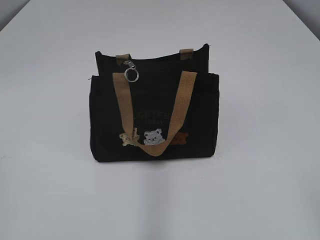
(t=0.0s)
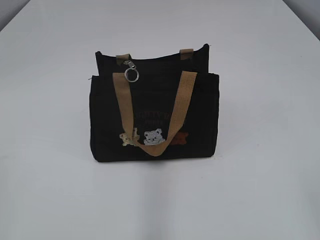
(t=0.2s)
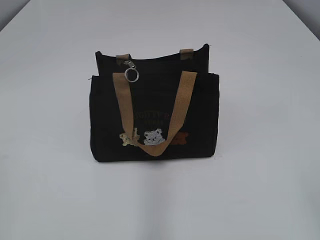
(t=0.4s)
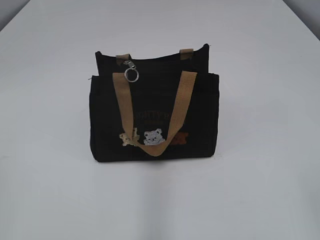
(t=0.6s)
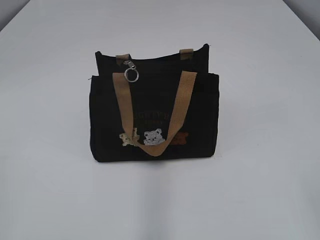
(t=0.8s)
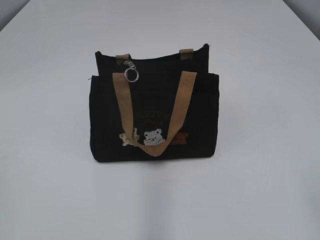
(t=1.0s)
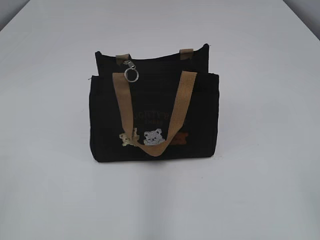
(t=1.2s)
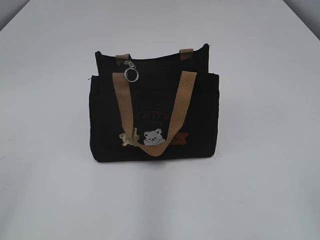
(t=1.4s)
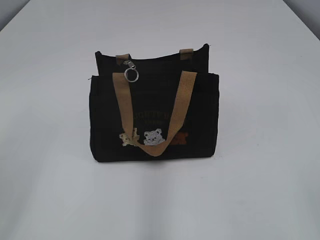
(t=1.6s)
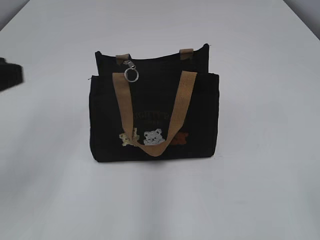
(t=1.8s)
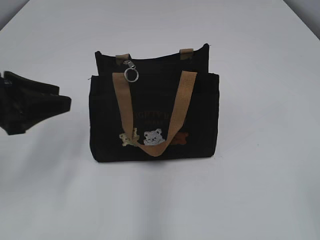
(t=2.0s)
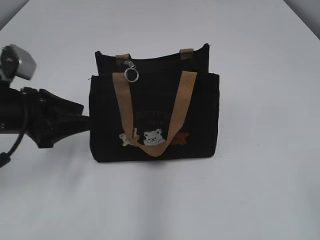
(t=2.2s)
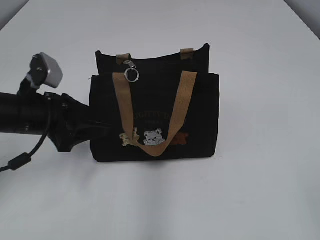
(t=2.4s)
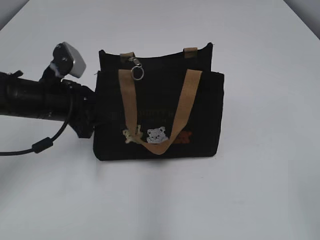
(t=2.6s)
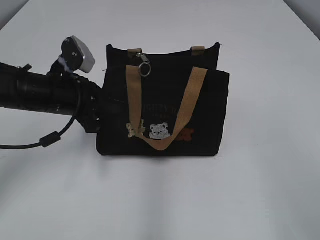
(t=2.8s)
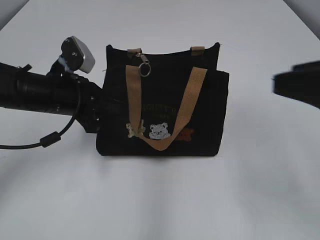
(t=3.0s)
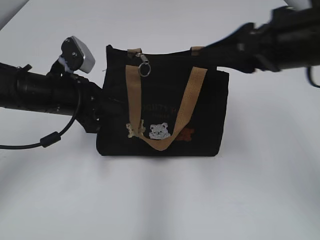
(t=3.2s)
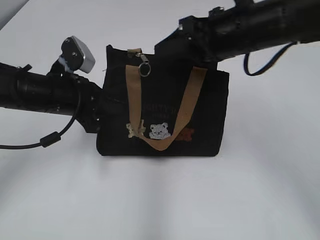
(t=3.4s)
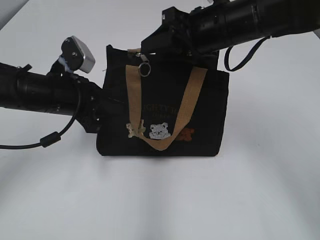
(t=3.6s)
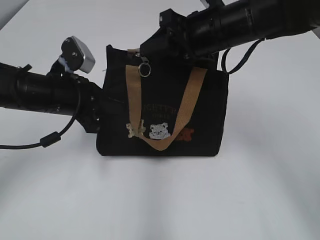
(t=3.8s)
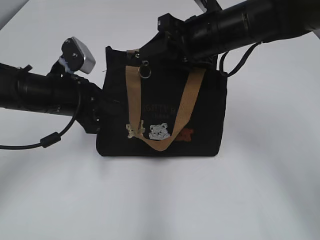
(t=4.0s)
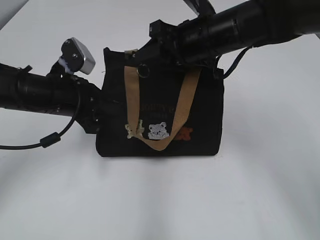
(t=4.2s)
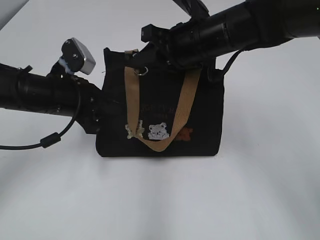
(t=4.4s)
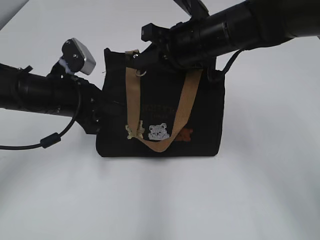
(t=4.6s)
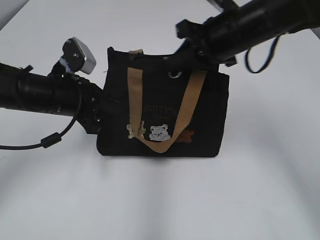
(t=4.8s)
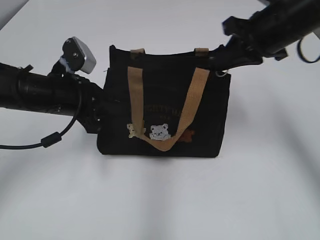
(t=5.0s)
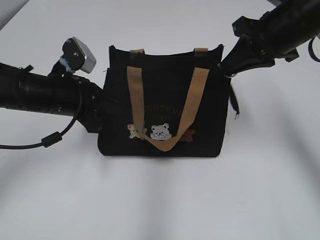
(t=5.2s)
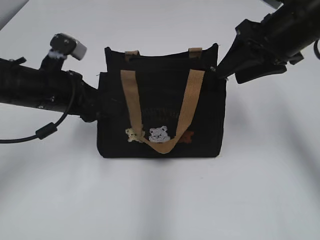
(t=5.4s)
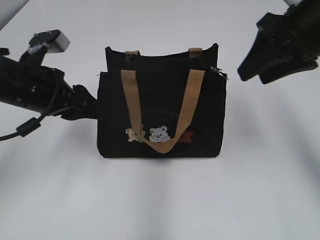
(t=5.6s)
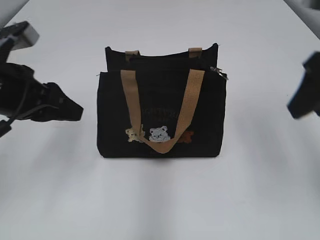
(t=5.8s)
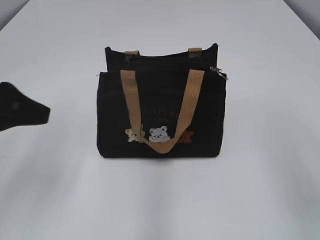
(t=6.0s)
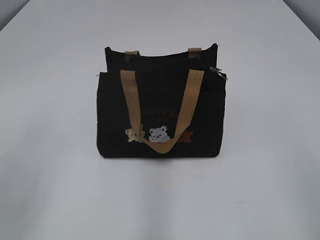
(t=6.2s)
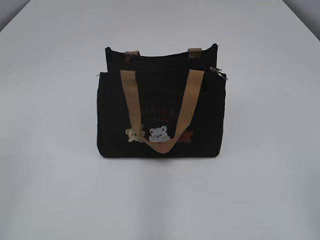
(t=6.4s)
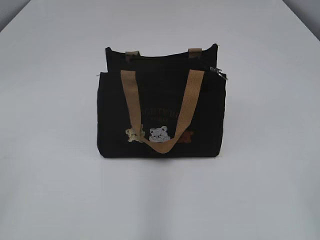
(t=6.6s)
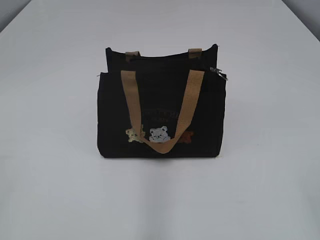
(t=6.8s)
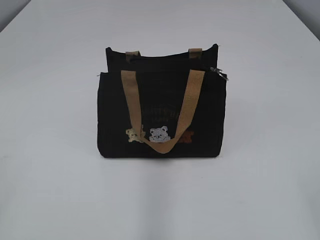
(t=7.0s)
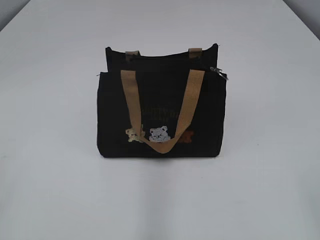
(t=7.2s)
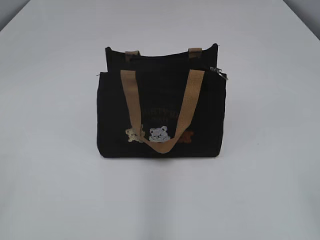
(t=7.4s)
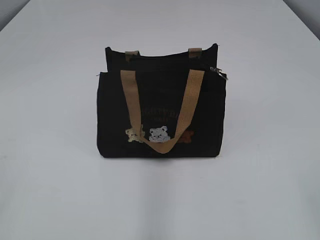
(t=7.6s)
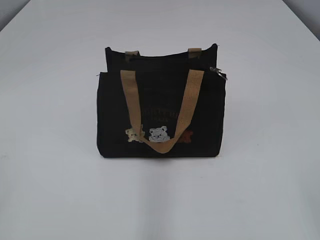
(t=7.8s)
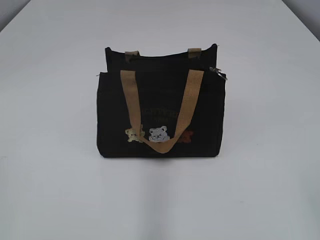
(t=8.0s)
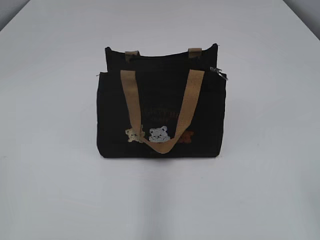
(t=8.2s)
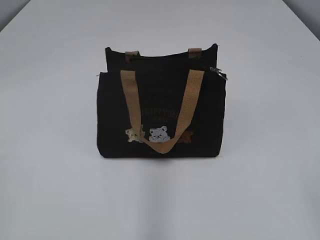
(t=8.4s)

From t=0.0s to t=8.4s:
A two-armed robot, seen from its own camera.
Step, from t=0.0s to t=5.2s: Zip up the bag with your right hand.
Step, from t=5.4s to t=5.6s: Grab the zipper with your left hand.
From t=1.4s to t=2.8s: The right gripper ends up some 5 cm from where it was. The left gripper moves forward and downward, roughly 35 cm, and closes up.
From t=2.8s to t=4.2s: The right gripper goes approximately 35 cm forward and to the left.
From t=4.2s to t=5.6s: The right gripper moves to the right, upward and backward, about 15 cm, and closes, then reopens. Meanwhile the left gripper opens up.
From t=5.6s to t=7.0s: The right gripper moves backward, roughly 30 cm. Meanwhile the left gripper heads backward and to the left, covering some 30 cm.
